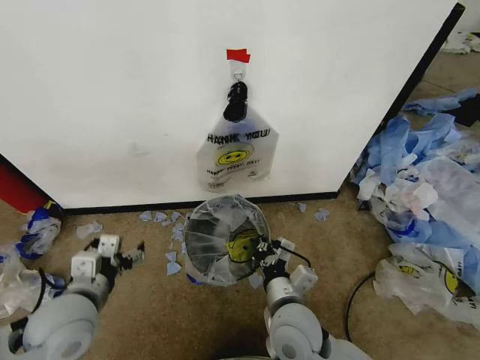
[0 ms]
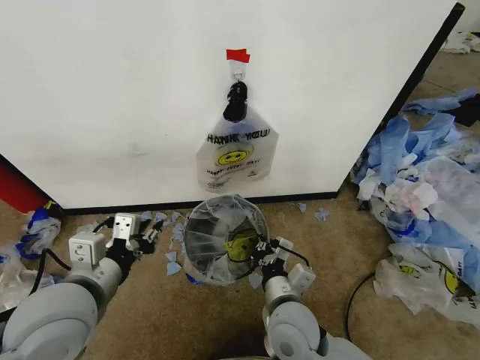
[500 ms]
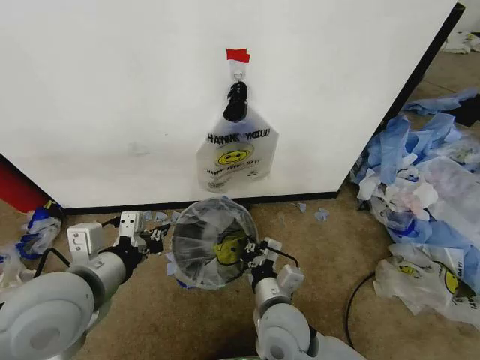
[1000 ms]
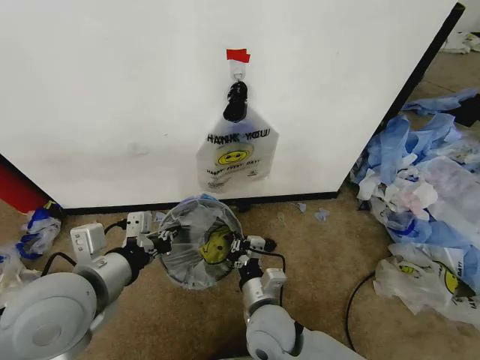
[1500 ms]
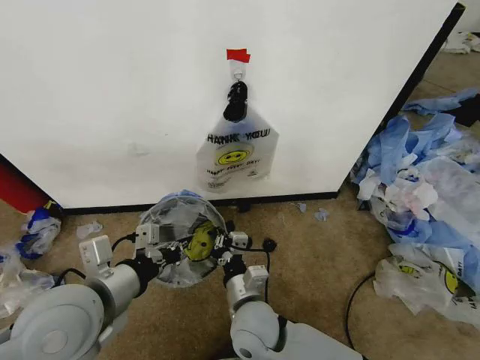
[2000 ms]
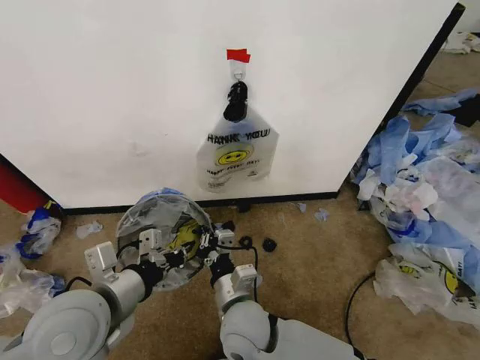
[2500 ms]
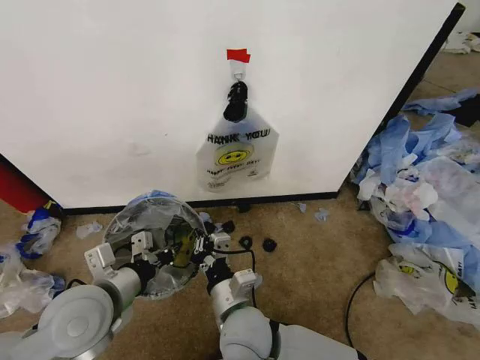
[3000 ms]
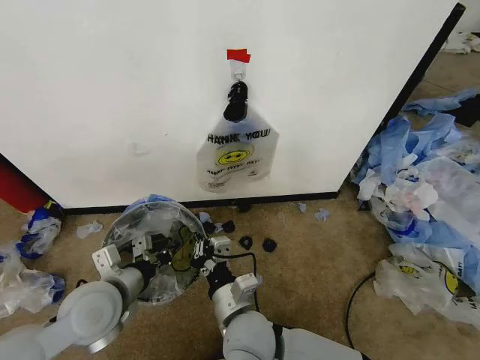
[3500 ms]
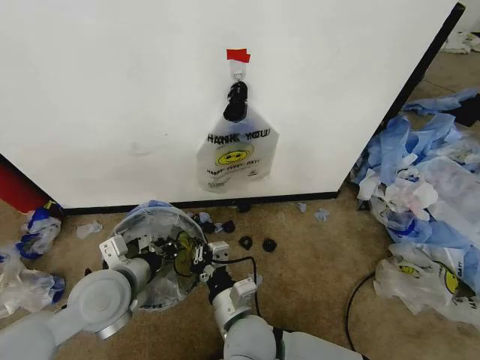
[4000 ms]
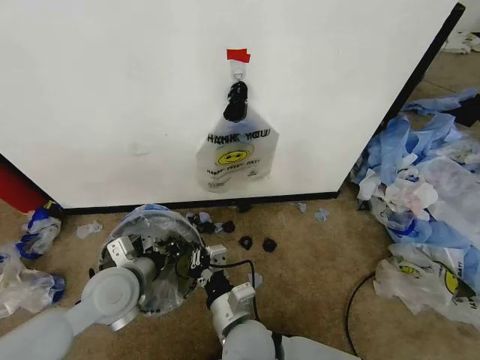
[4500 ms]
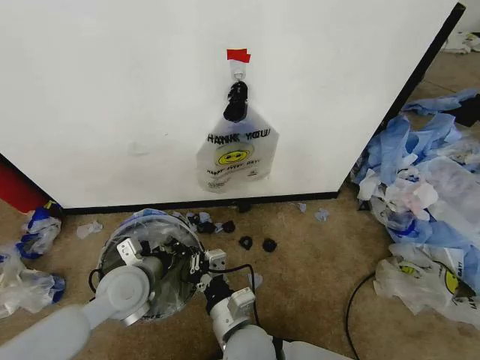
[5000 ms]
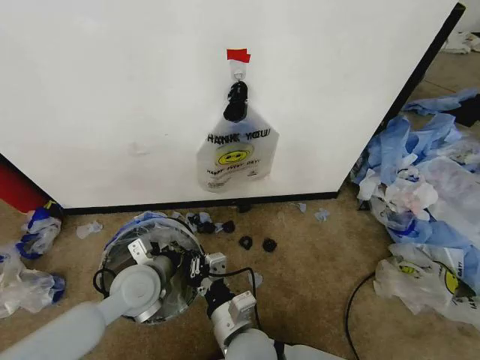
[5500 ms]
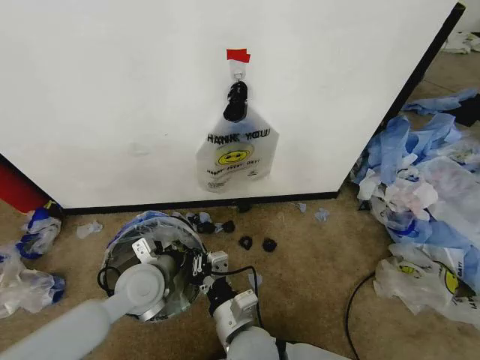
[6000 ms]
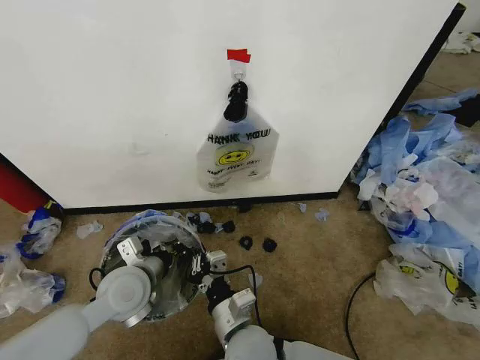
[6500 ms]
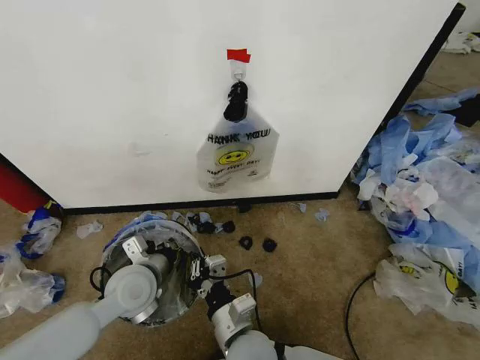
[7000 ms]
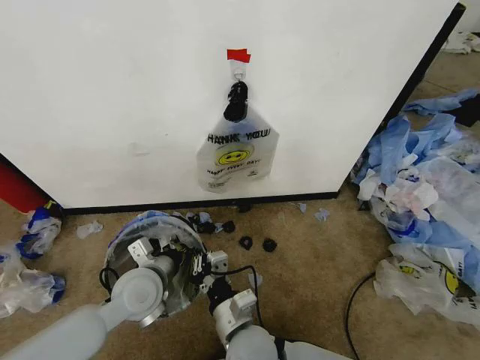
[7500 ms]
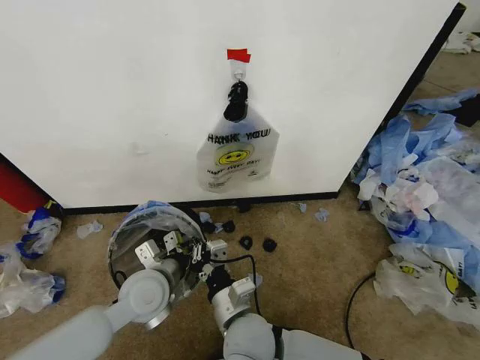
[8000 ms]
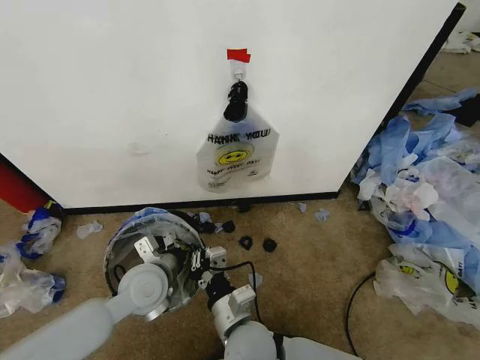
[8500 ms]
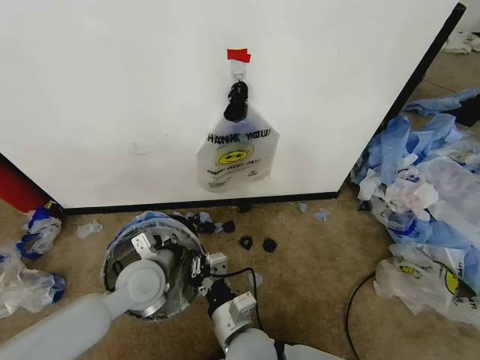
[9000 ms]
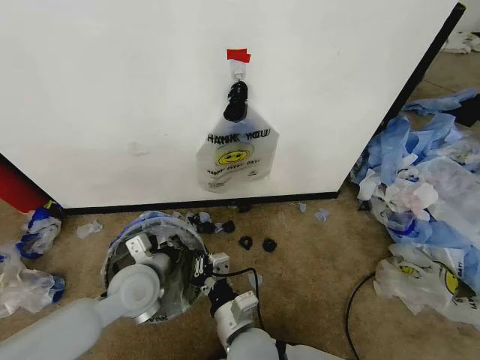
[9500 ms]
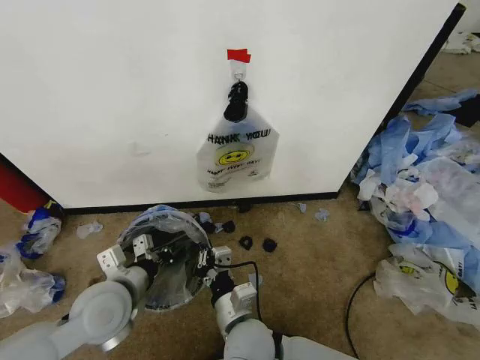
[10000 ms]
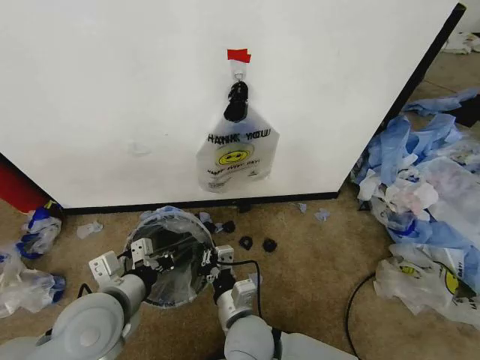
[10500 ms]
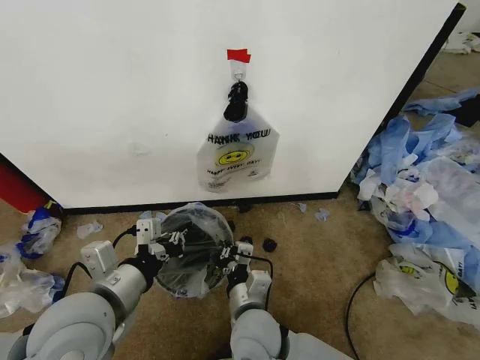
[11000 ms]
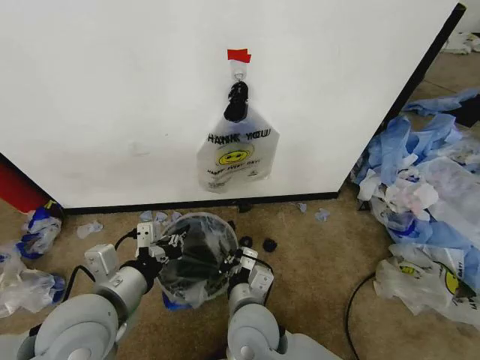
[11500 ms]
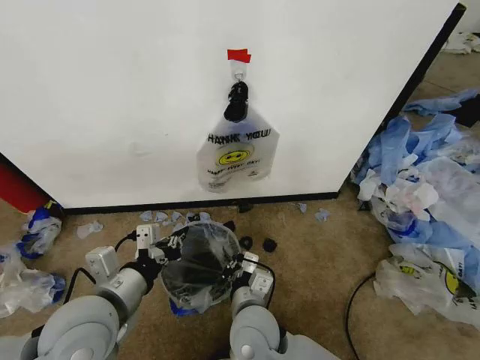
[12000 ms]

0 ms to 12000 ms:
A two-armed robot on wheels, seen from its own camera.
Task of the whole recording: Pick up the garbage bag from the wall and place it over the trash bin.
0 ms to 2000 ms: The left gripper travels upward by roughly 10 cm, and closes its fingers; the right gripper goes approximately 5 cm to the left.
2000 ms to 4000 ms: The left gripper shifts approximately 10 cm downward and forward.
4000 ms to 6000 ms: The left gripper moves downward, approximately 5 cm.
6000 ms to 8000 ms: There are only small adjustments of the grippers.
8000 ms to 10000 ms: The left gripper heads to the left, covering roughly 5 cm.
10000 ms to 12000 ms: The left gripper is displaced upward by some 5 cm.

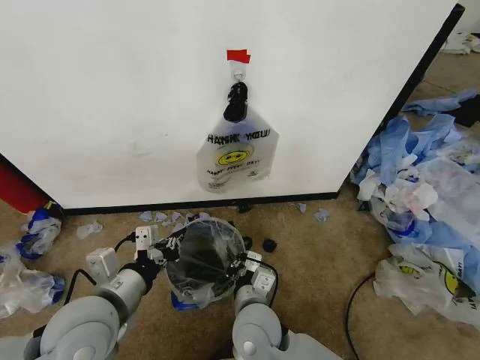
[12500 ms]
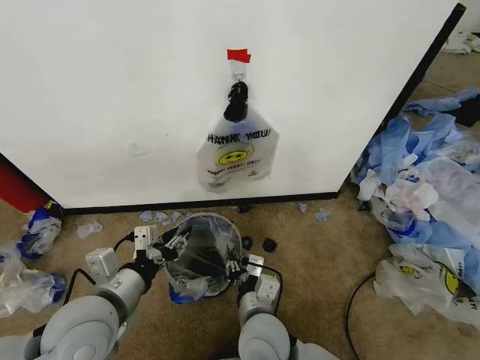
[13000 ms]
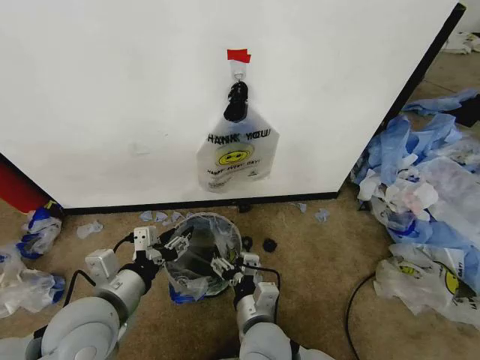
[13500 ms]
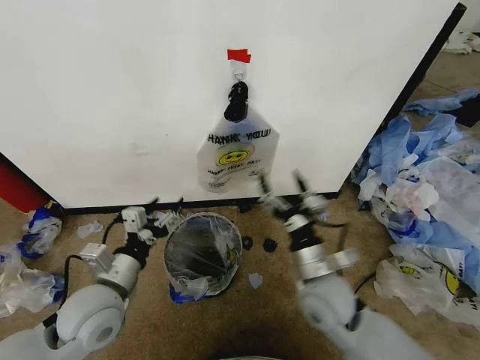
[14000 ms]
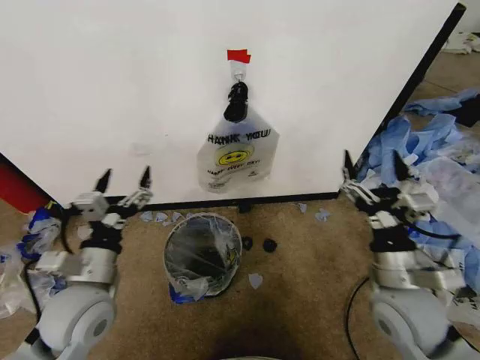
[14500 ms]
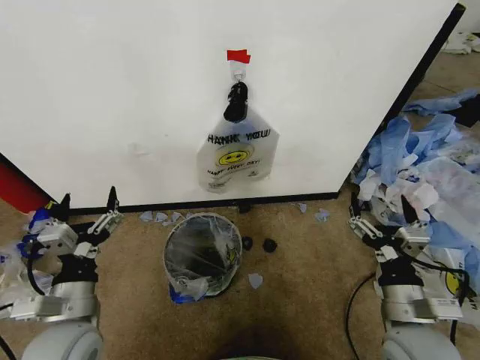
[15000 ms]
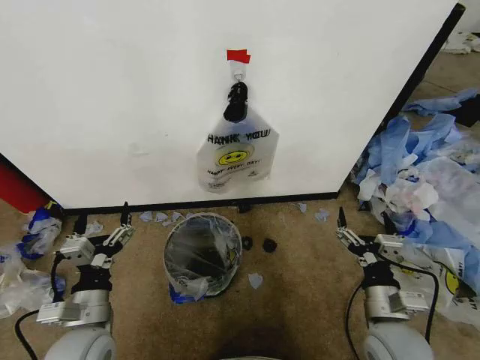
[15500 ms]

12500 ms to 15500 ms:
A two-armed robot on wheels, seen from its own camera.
Task of the whole recording: Pick up the garbage bag from the wall and place it over the trash bin.
12500 ms to 14000 ms: The right gripper is displaced to the right by some 15 cm, and opens; the left gripper changes place by roughly 5 cm, and opens up.
14000 ms to 15500 ms: The left gripper goes about 5 cm downward. Meanwhile the right gripper goes about 15 cm to the right and backward.
